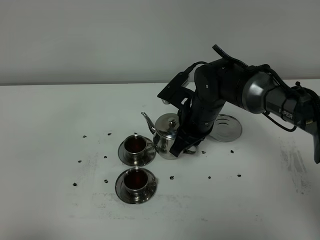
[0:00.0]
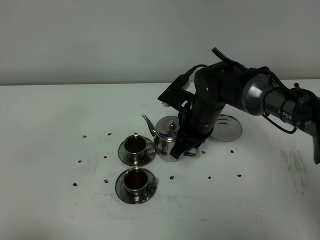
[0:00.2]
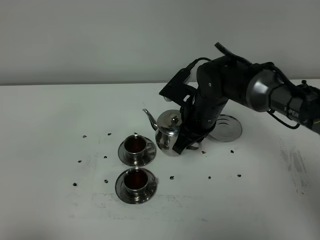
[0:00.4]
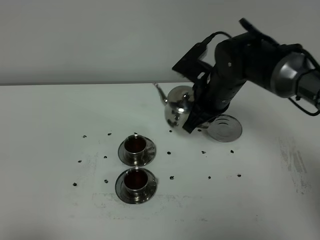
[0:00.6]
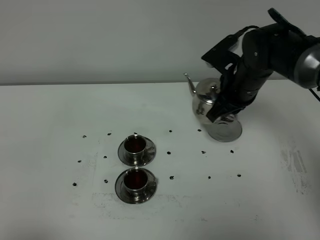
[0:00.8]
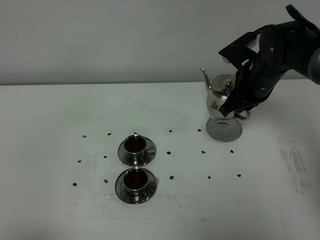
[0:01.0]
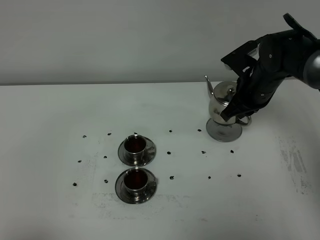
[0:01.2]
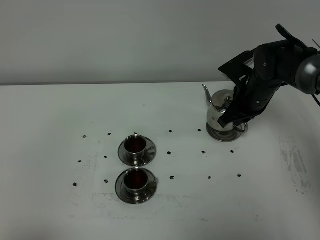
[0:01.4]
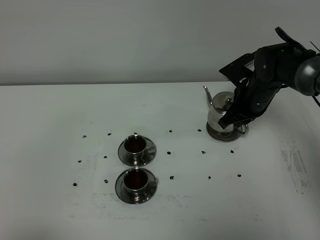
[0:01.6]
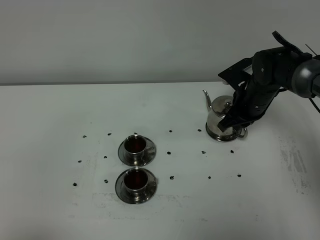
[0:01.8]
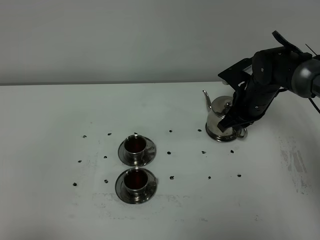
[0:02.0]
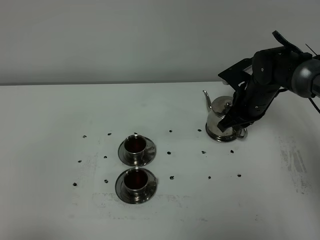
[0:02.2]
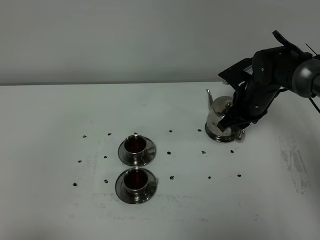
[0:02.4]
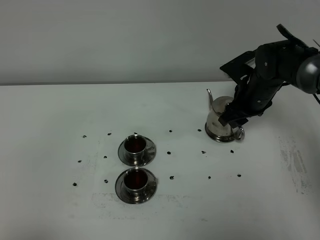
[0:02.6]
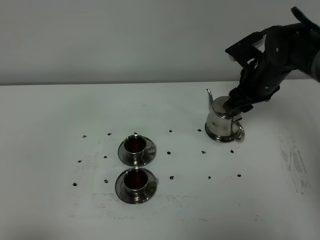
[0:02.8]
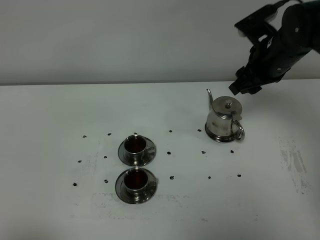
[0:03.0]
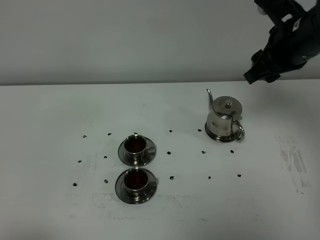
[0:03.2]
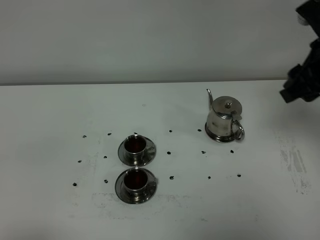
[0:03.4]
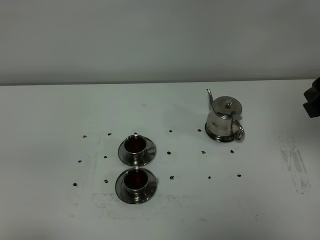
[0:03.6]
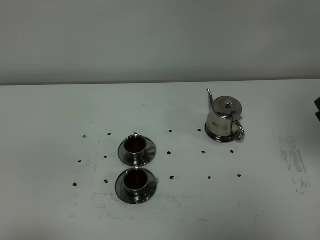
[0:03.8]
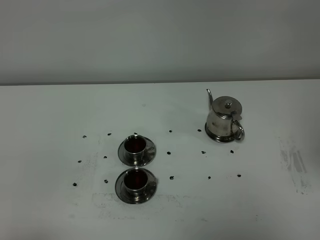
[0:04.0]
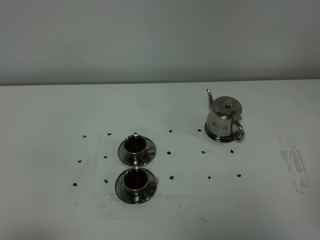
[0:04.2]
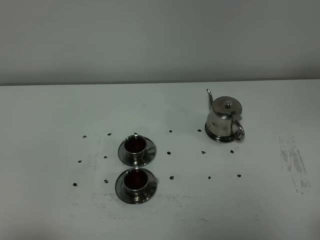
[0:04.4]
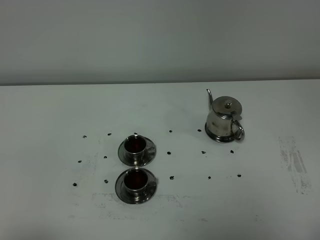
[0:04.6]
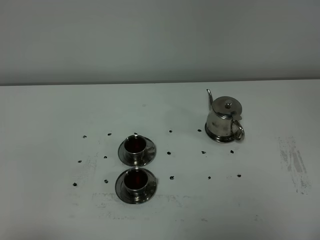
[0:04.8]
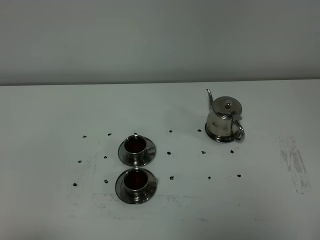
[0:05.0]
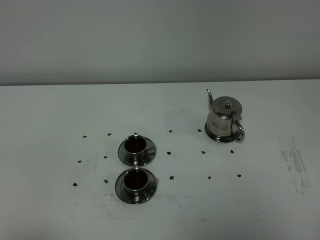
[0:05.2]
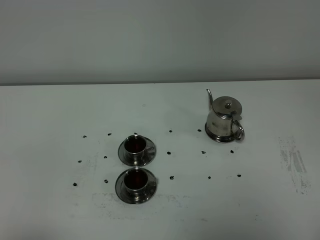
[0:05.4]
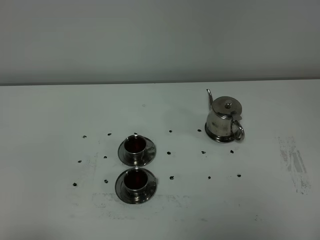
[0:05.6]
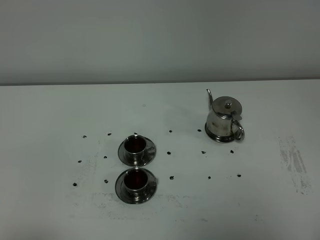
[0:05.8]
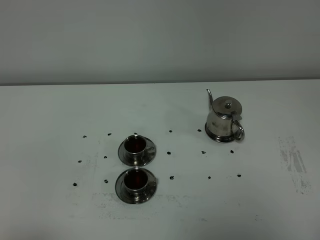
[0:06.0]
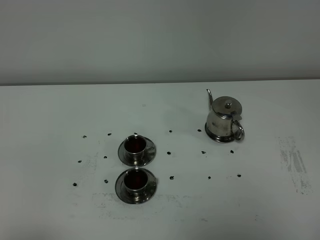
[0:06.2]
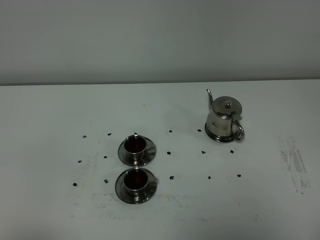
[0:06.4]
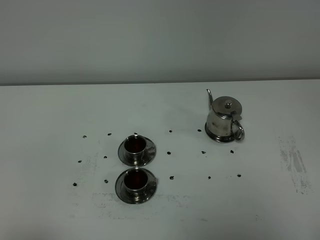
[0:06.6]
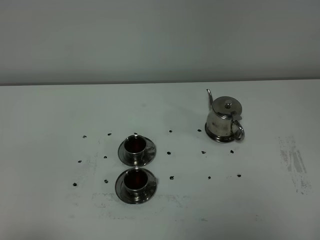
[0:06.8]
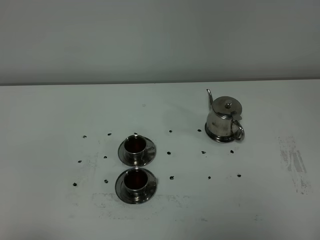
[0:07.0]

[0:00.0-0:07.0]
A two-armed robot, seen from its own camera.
Task of the whole recording: grasp the stainless steel teapot and pour the tea into the two stainless steel teacups one by one, put the stainless steel teapot back in its original place.
0:00.0 to 0:01.4: The right gripper goes approximately 10 cm to the right.
0:01.4 to 0:02.8: The right gripper heads upward, covering about 5 cm, and opens its fingers.
0:02.8 to 0:04.2: The right gripper goes roughly 35 cm backward.
0:05.6 to 0:07.0: Neither gripper changes place.
